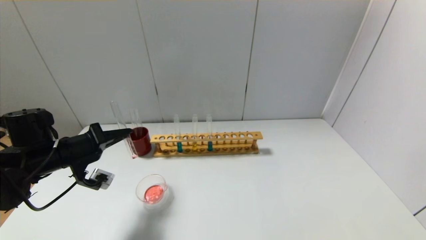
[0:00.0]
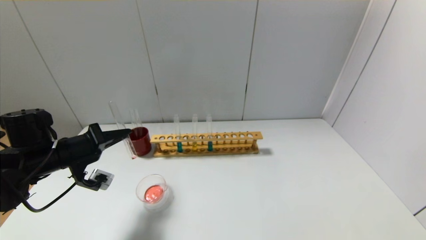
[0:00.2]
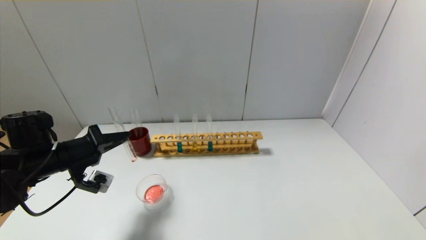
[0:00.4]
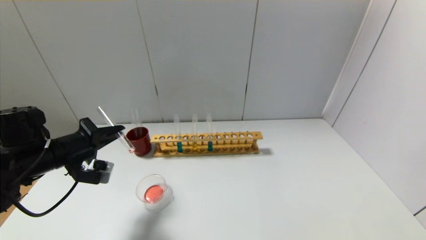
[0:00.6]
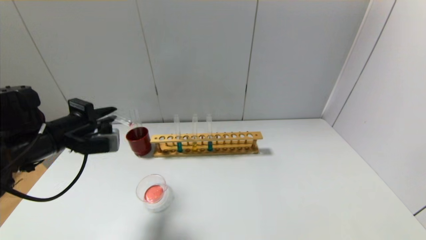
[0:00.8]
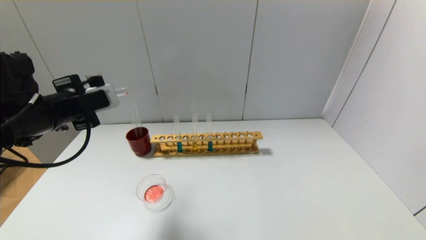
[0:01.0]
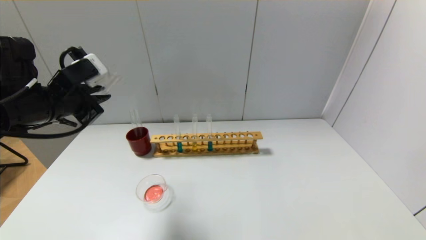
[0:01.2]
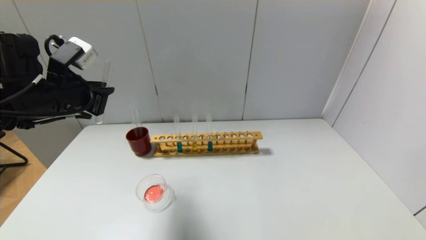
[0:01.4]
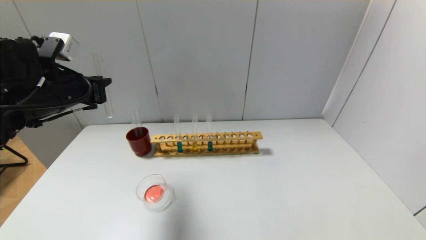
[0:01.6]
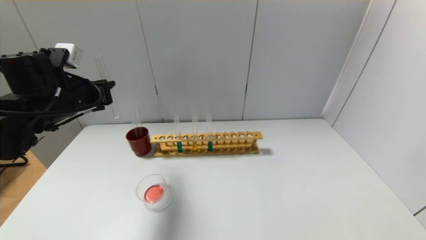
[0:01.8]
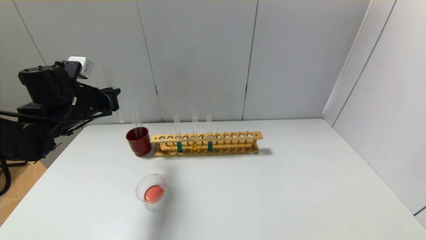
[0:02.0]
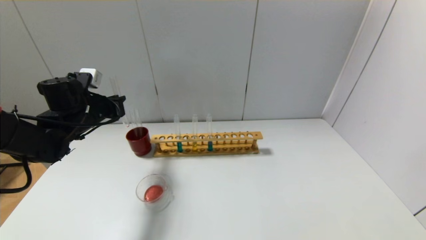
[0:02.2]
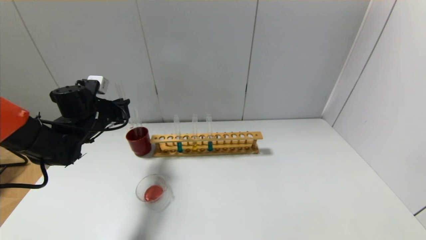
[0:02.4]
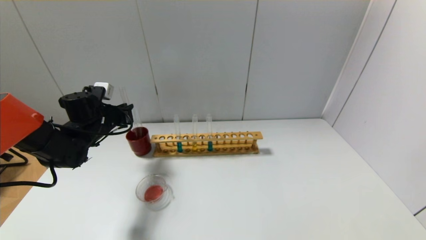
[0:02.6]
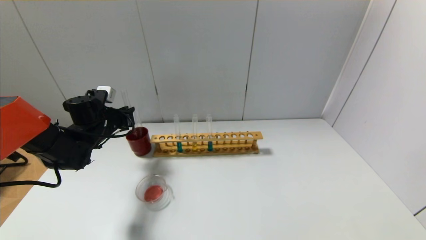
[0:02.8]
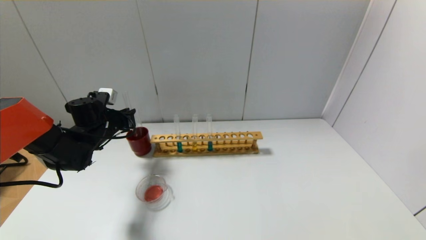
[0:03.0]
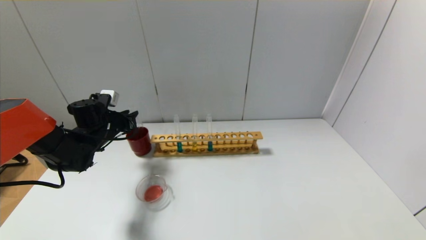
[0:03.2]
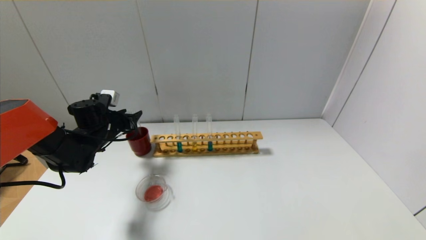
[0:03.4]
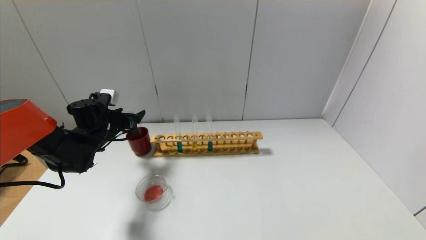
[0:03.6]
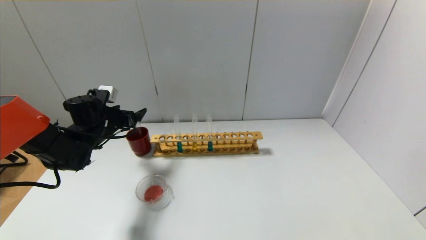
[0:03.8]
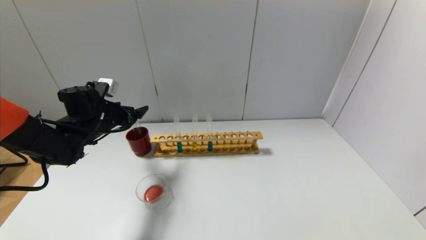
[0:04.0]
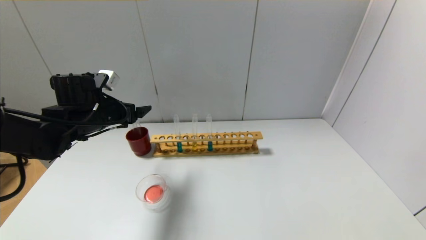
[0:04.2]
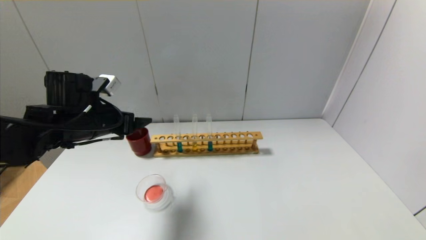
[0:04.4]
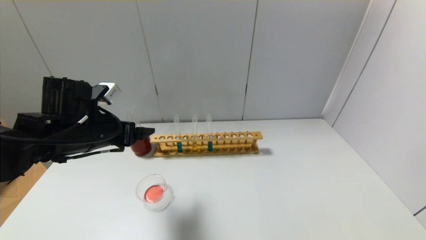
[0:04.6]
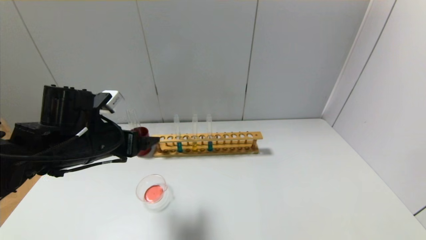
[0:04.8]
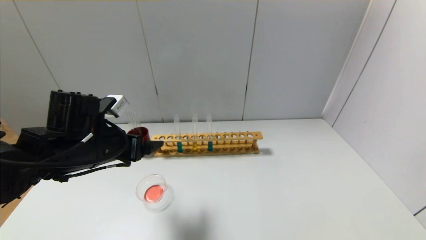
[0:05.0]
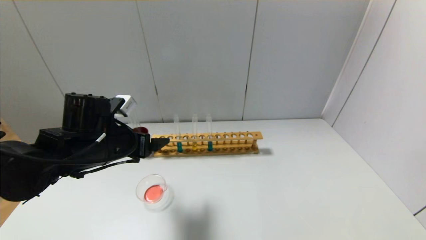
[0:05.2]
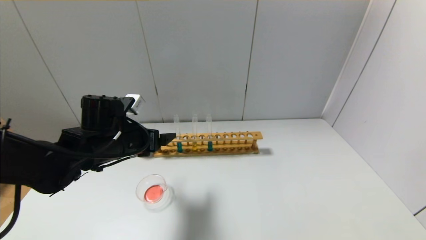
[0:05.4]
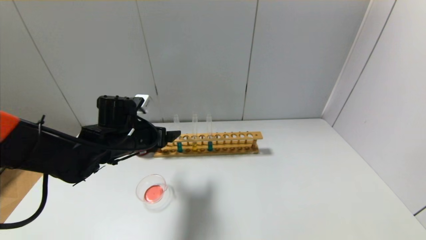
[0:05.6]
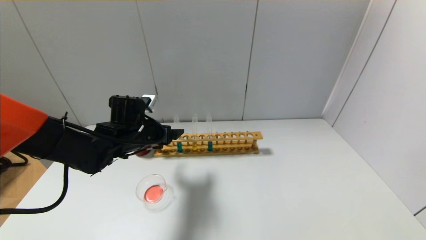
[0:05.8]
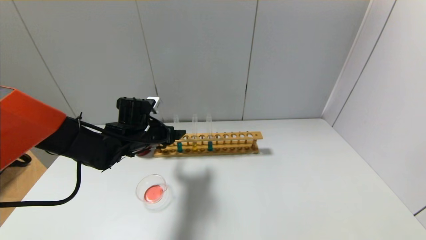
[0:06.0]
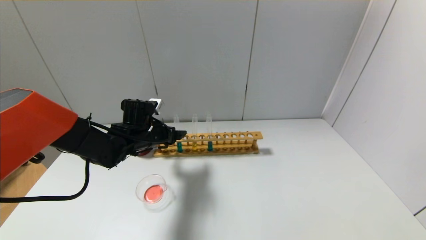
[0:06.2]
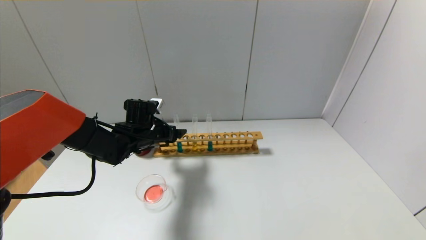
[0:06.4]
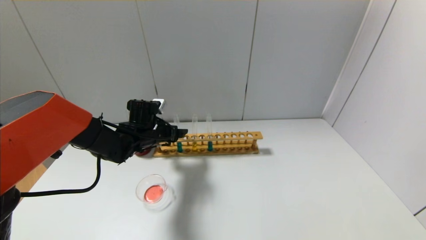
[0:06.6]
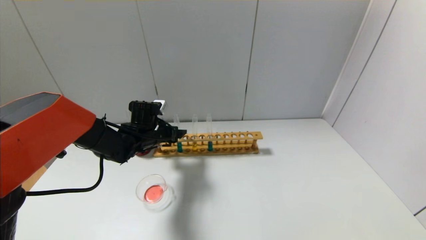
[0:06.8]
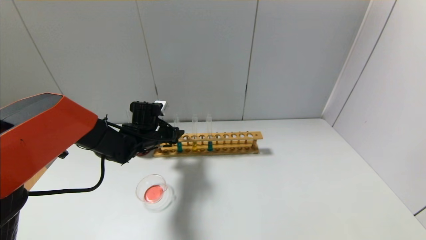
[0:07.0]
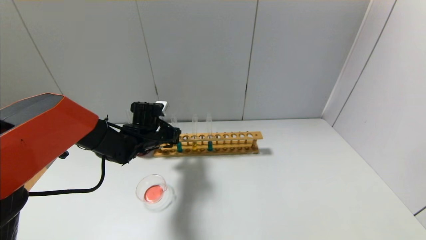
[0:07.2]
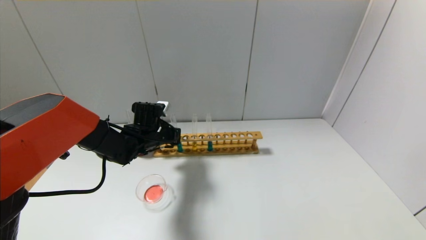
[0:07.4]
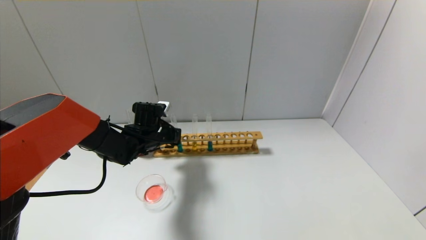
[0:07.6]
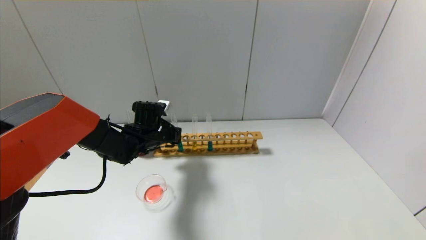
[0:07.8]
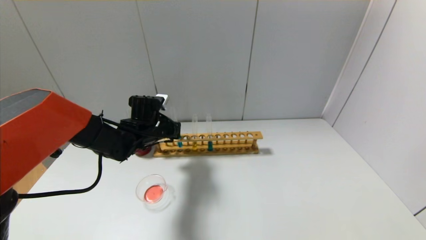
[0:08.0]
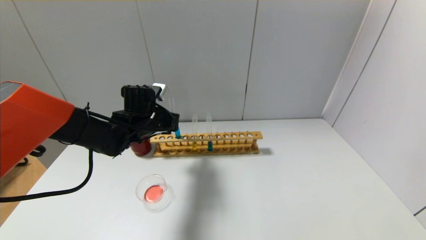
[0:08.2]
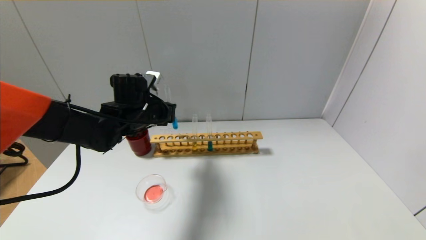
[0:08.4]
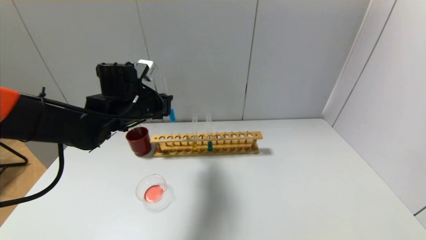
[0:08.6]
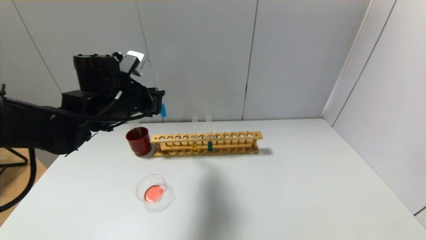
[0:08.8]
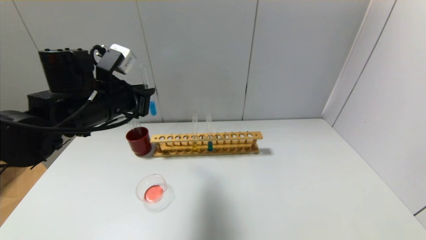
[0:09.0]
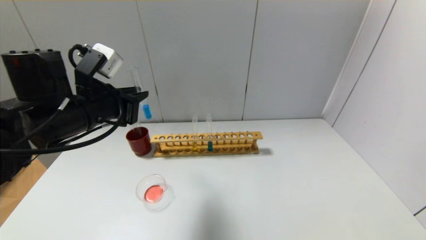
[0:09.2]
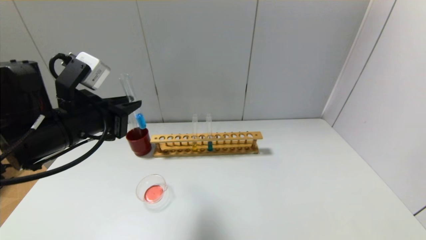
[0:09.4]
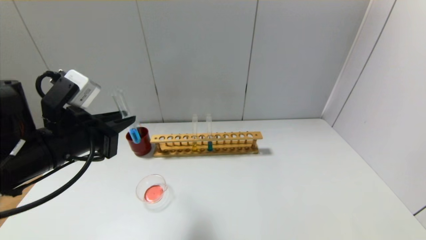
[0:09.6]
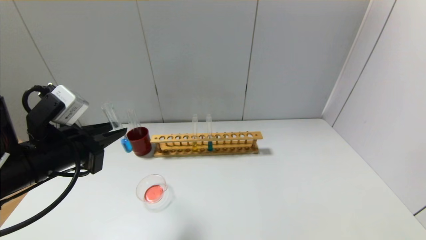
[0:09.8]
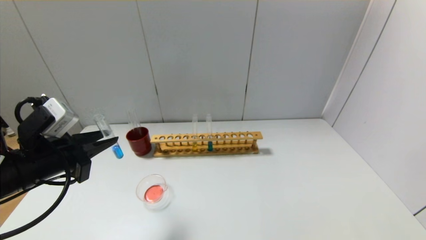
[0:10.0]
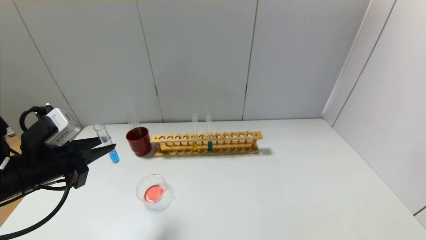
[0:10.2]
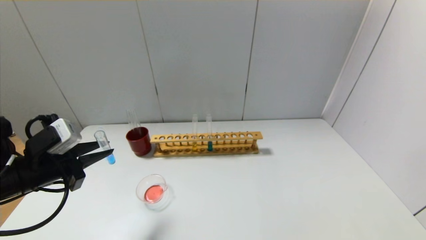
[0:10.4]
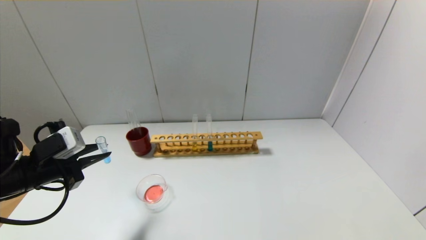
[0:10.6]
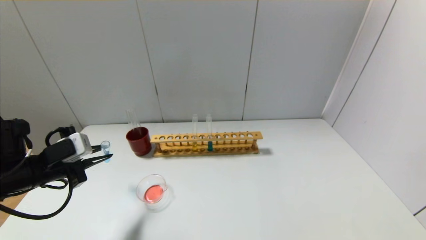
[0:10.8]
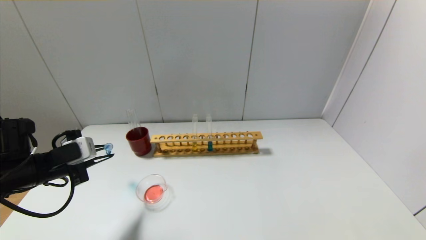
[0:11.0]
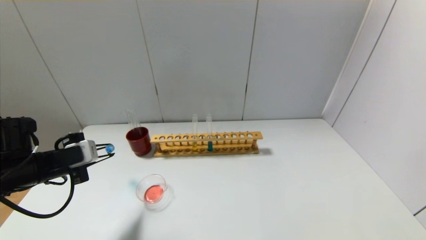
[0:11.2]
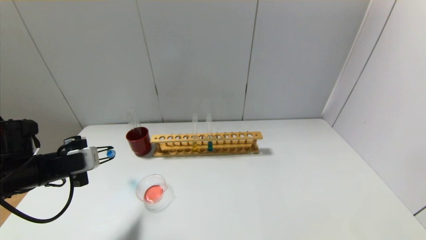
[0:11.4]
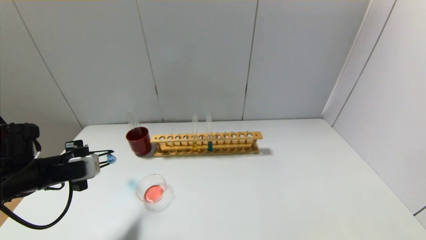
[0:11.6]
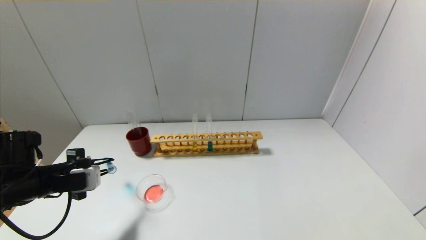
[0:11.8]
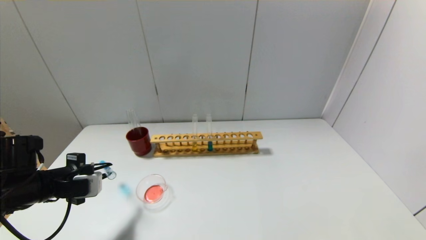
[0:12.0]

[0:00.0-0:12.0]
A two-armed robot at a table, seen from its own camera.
Step, 0:00.6 to 0:03.2: Place the test tube into the brown cup with the left gripper.
Step, 0:03.4 to 0:07.6: Grasp the blue reagent with the left gripper.
0:00.0 to 0:01.6: The left gripper travels upward by about 10 cm.
0:01.6 to 0:03.0: The left gripper heads downward and forward, covering roughly 20 cm.
0:03.0 to 0:04.4: The left gripper goes roughly 15 cm backward, upward and to the right, and opens its fingers.
0:04.4 to 0:06.0: The left gripper is displaced downward, to the right and forward by about 10 cm.
0:06.0 to 0:07.6: The left gripper closes.
0:07.6 to 0:09.0: The left gripper heads upward and backward, covering approximately 20 cm.
0:09.0 to 0:10.4: The left gripper goes approximately 15 cm to the left, backward and downward.
0:10.4 to 0:12.0: The left gripper moves downward, about 5 cm.

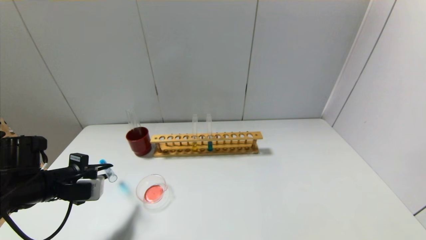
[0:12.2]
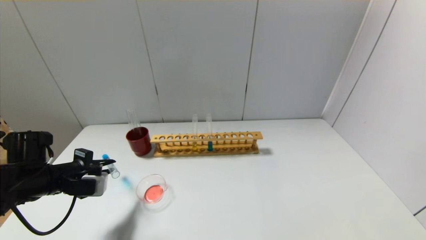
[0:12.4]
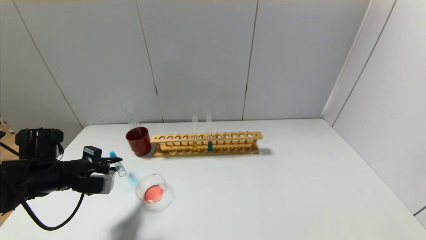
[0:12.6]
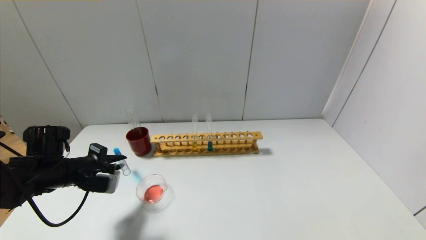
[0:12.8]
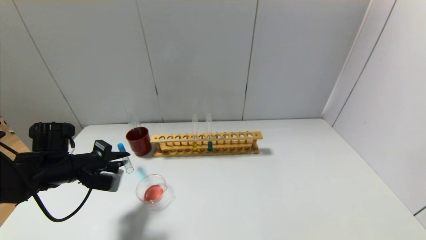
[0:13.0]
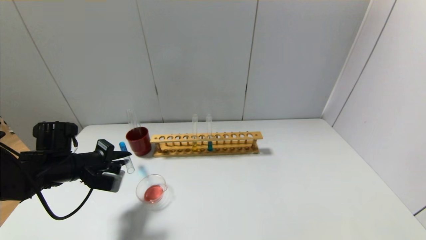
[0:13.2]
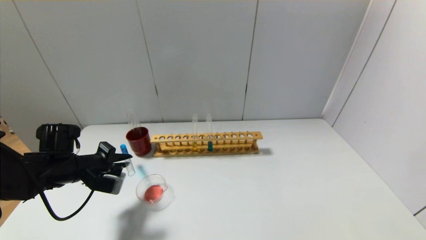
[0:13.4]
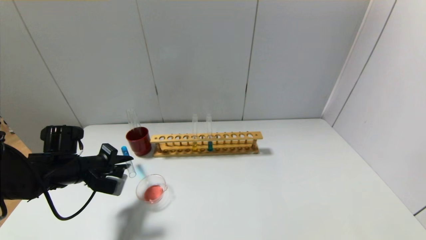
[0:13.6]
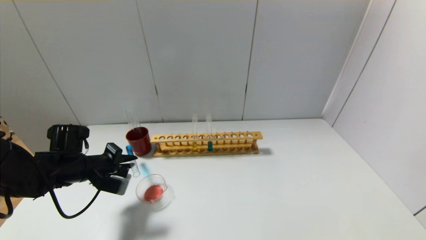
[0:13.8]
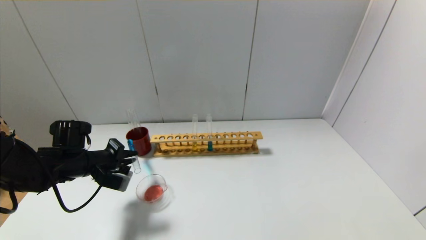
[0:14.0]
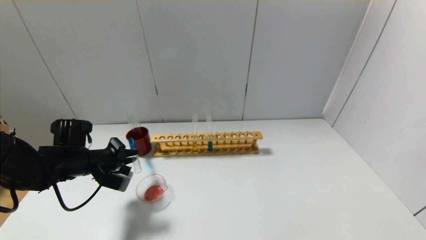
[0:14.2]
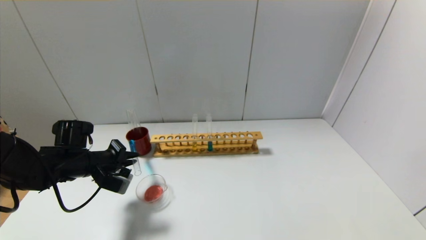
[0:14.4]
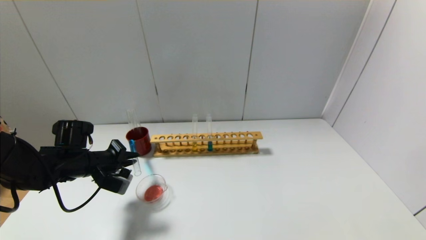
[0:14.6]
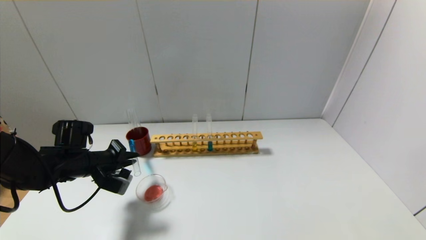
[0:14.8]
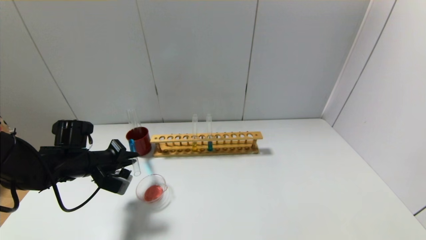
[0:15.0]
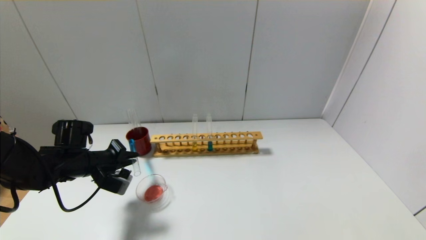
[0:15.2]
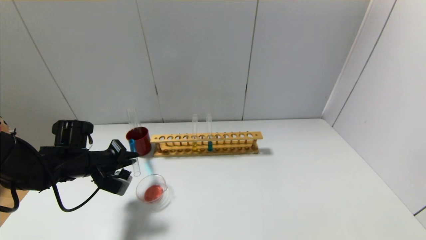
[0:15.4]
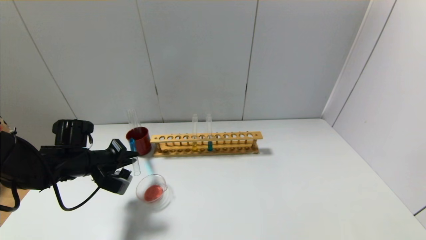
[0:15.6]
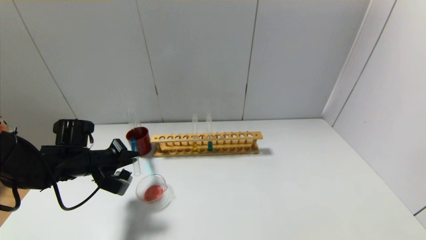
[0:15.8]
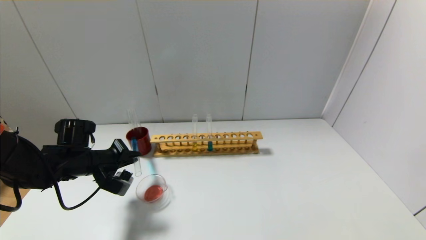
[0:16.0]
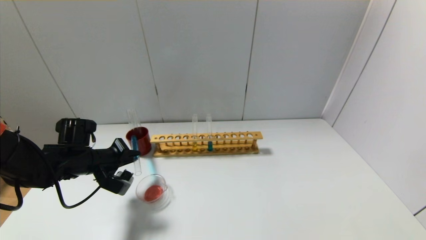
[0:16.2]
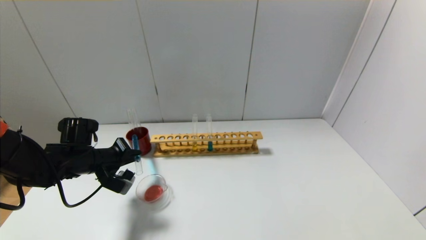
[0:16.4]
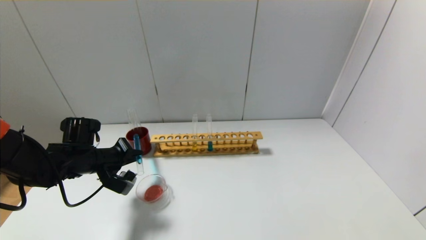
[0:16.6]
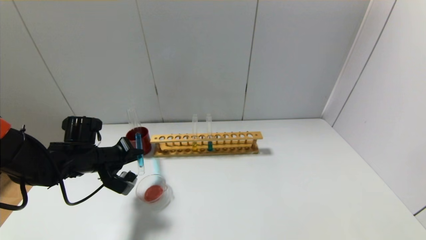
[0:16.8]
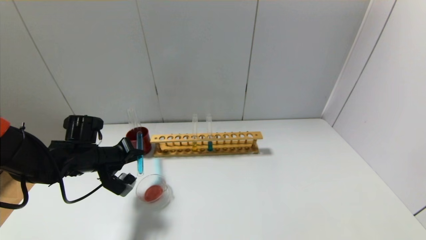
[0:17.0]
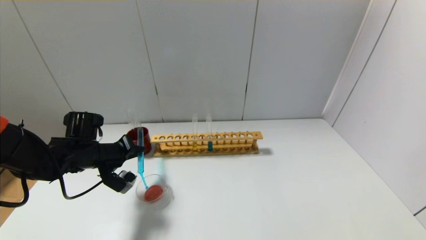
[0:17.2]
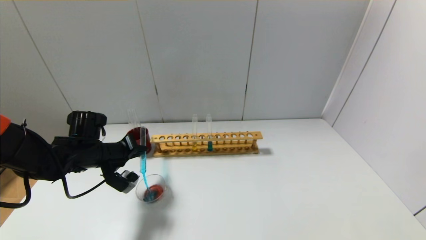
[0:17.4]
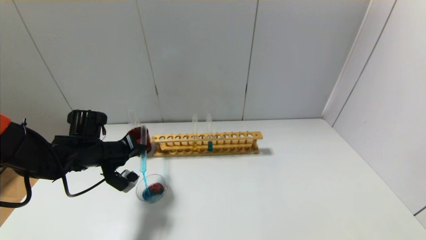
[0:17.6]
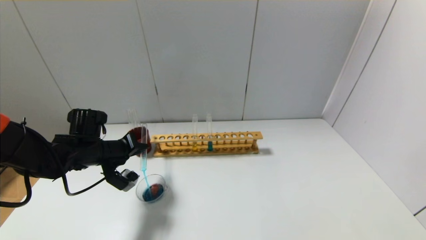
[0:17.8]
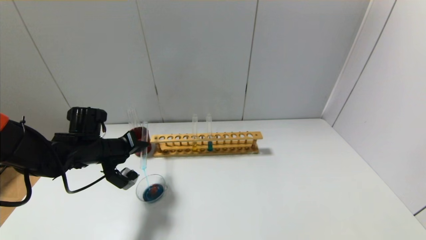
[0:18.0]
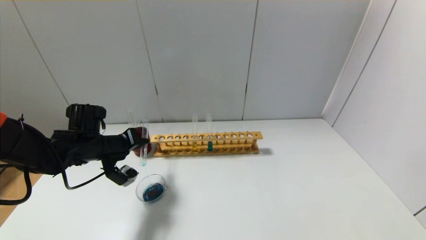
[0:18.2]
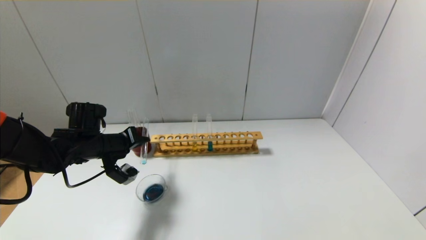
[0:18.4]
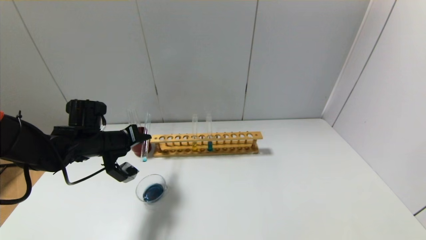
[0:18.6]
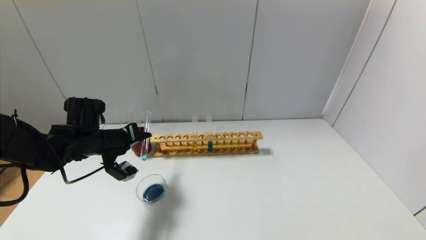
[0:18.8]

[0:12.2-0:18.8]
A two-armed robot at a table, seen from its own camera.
0:12.2 to 0:13.8: The left gripper travels forward by some 5 cm.
0:13.8 to 0:15.4: The grippers move only a little.
0:15.4 to 0:17.2: The grippers stay close to where they were, moving slightly.
0:17.2 to 0:18.8: The grippers move only a little.
